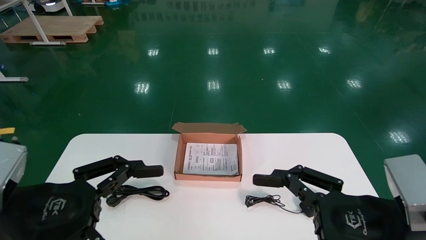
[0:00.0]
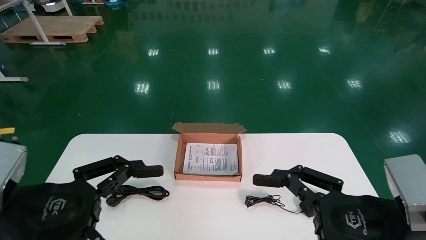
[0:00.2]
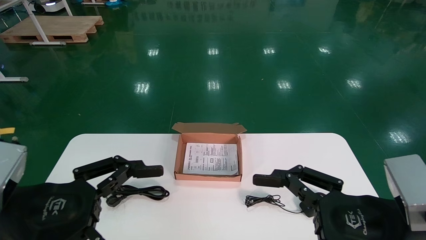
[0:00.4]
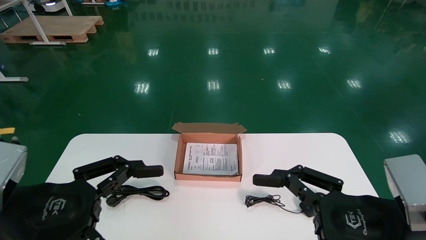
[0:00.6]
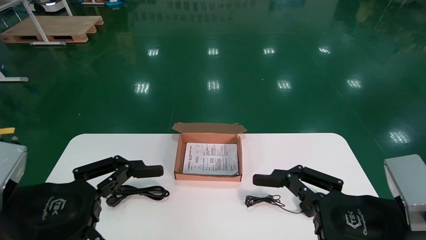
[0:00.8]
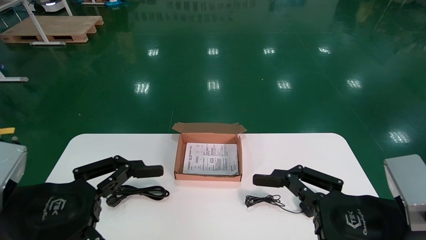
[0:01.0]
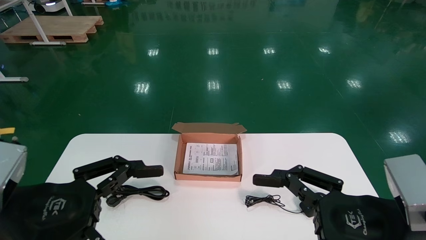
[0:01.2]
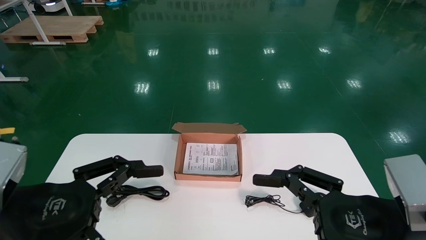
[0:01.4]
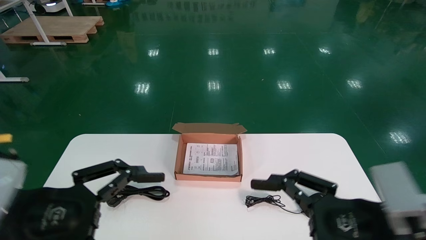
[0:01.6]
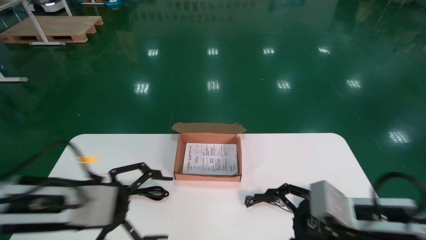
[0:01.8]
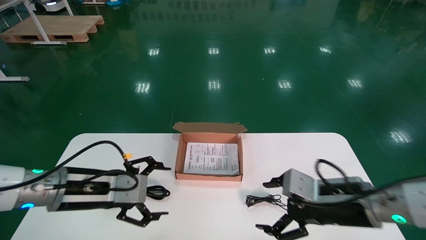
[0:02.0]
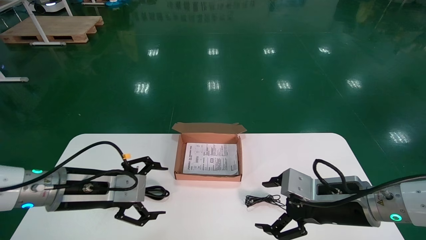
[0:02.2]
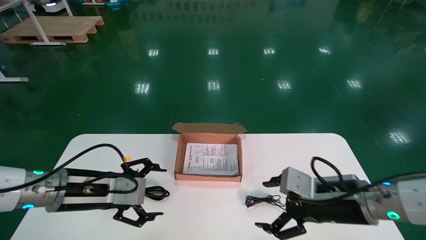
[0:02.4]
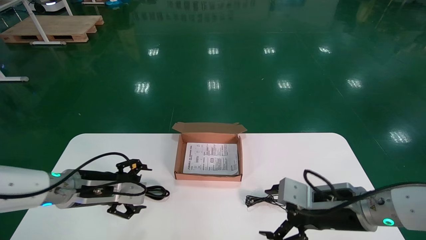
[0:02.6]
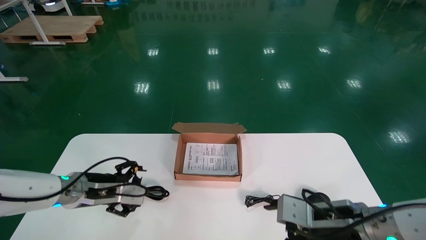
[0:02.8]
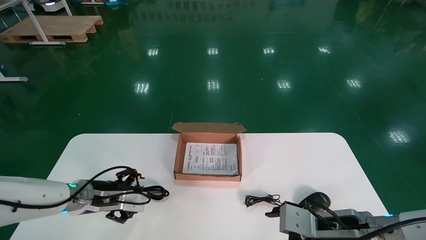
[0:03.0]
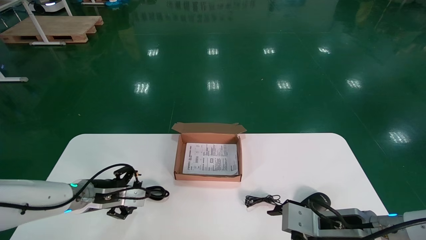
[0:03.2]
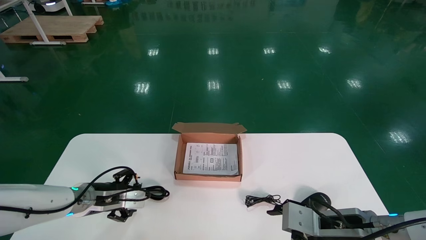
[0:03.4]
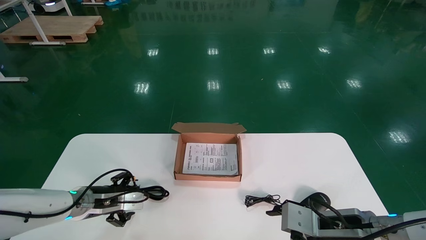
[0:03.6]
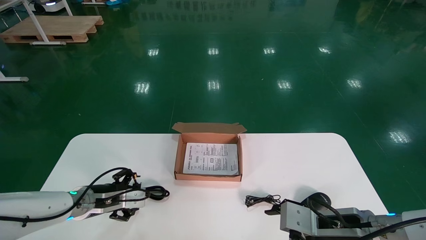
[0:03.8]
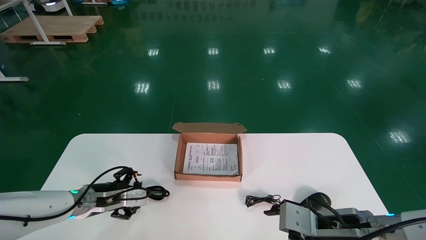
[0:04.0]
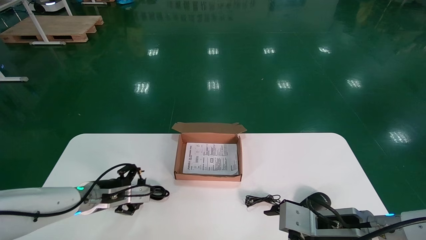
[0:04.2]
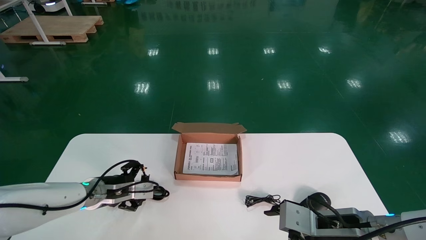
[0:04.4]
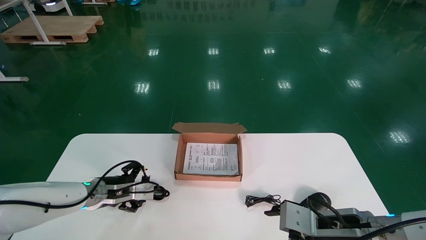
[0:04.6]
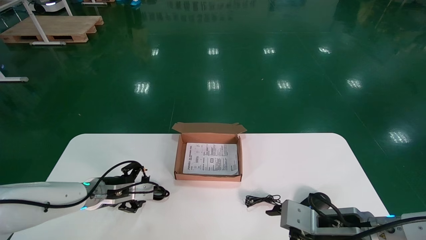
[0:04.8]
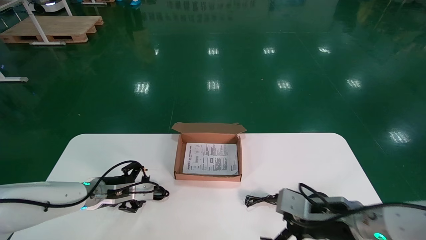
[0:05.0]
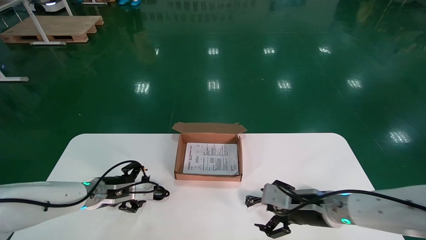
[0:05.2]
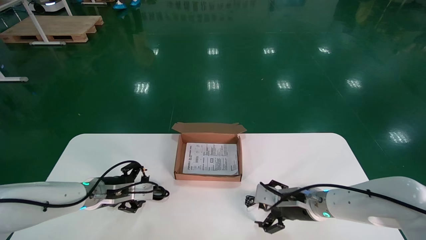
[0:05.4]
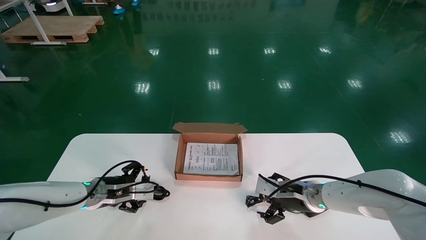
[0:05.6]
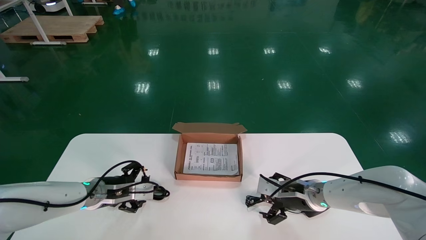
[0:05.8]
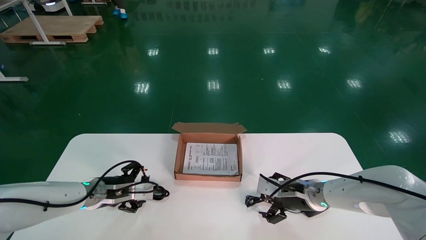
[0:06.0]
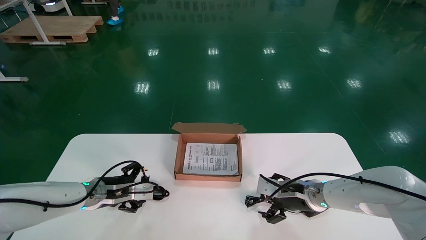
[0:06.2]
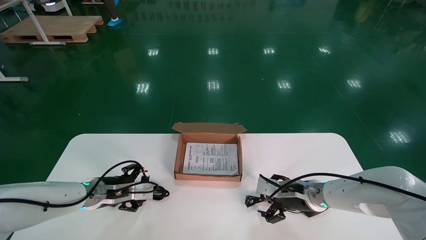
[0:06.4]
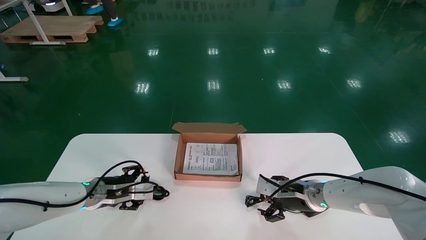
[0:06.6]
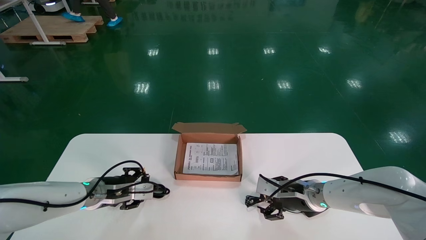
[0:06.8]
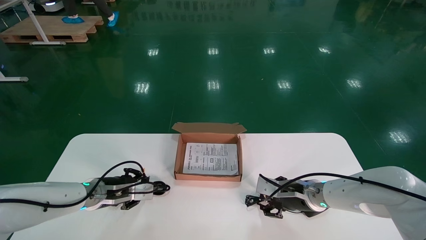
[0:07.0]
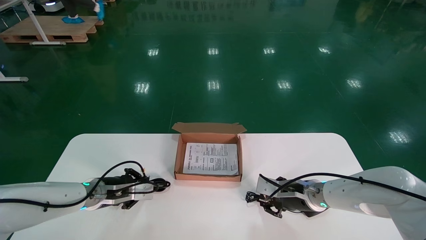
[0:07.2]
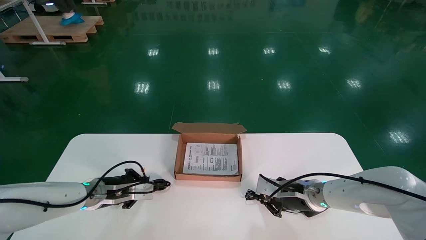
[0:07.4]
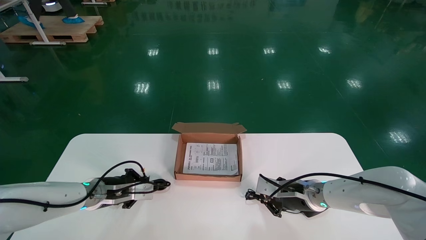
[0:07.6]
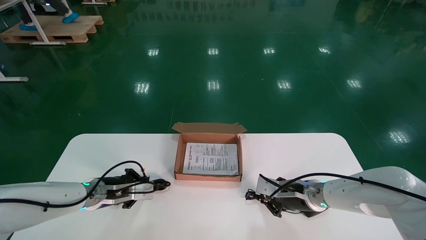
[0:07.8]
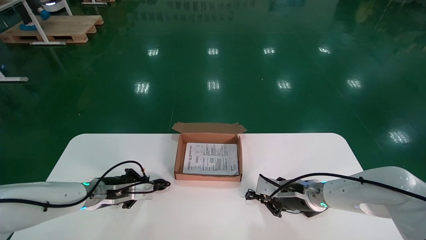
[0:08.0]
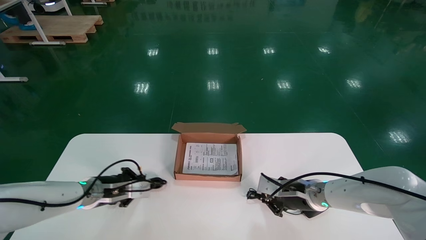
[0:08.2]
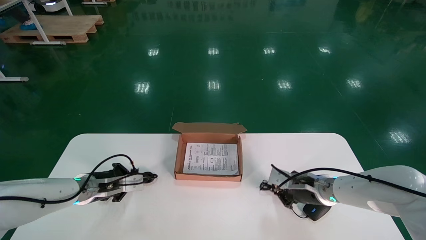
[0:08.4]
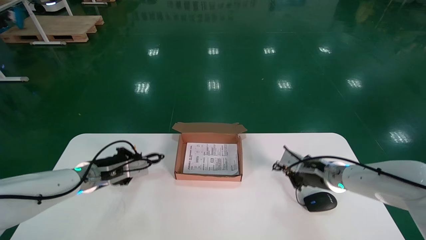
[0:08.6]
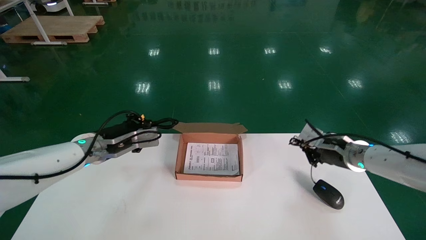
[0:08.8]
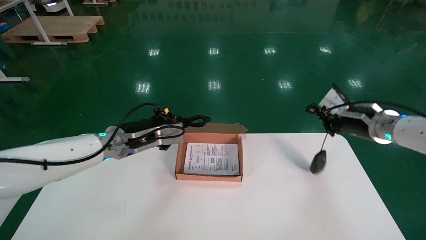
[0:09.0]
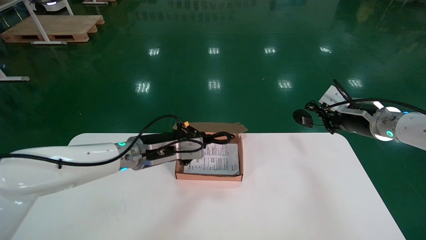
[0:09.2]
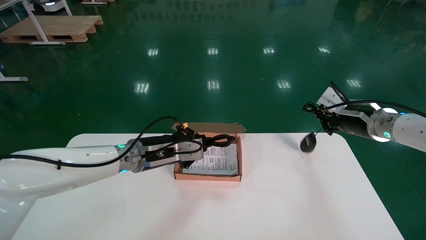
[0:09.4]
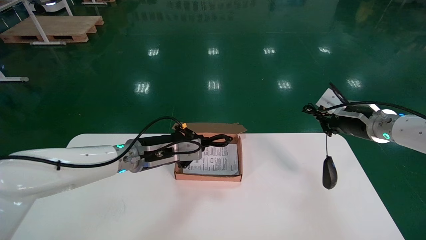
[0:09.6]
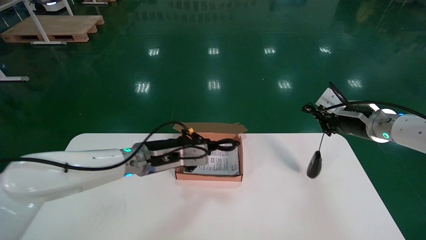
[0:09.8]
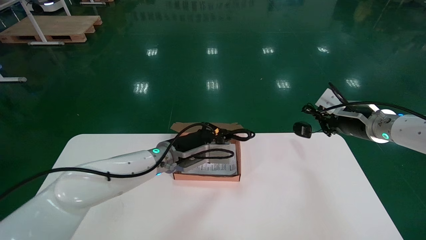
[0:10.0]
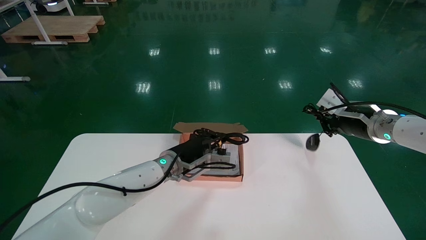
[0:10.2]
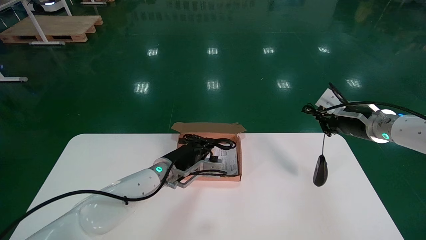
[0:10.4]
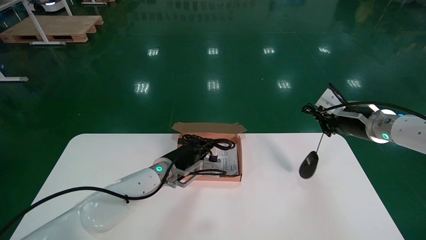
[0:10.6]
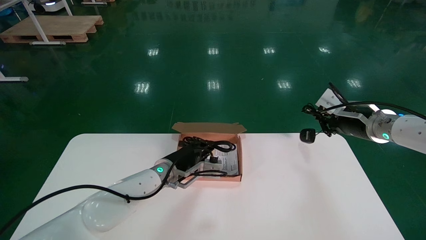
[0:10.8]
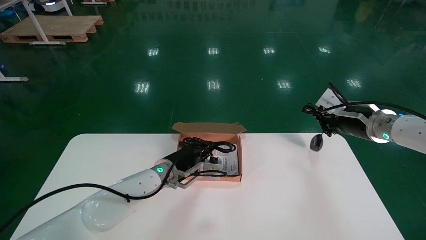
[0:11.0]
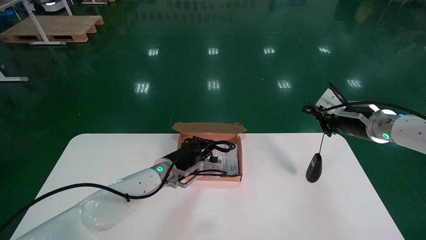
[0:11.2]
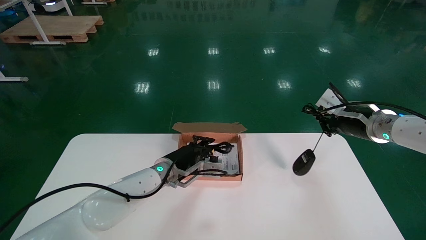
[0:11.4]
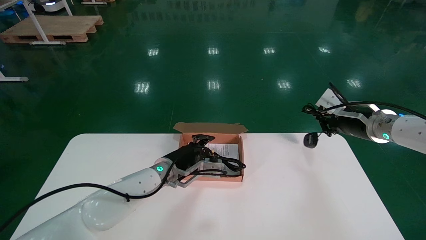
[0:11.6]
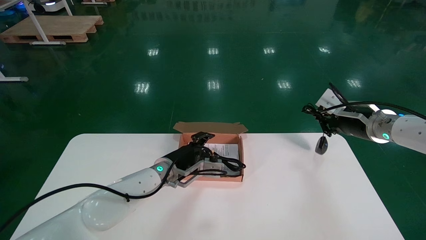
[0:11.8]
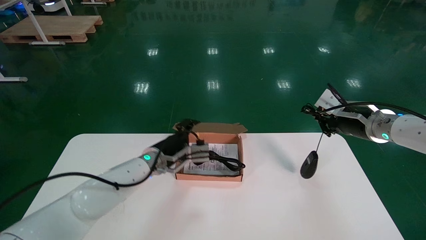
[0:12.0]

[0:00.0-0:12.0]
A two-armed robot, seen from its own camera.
Step, 0:01.8 to 0:07.2: Simultaneously pick up the mouse and power cord from the accessory packaging area.
0:01.6 to 0:03.0: The right gripper heads forward and downward, covering some 10 cm; the left gripper is displaced forward and downward by about 20 cm.
0:03.0 to 0:04.4: The grippers move only a little.
0:04.4 to 0:06.0: The right gripper is displaced forward by roughly 15 cm.
0:06.0 to 0:07.6: The left gripper closes up, while the right gripper closes up.
0:07.6 to 0:09.0: The two grippers go roughly 15 cm upward and to the right.
0:09.0 to 0:10.4: The left gripper heads to the right and downward, covering some 10 cm.
0:10.4 to 0:12.0: The left gripper is displaced to the left by some 5 cm, and opens its fingers.

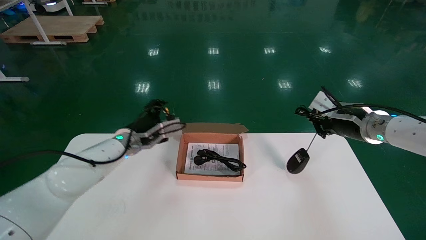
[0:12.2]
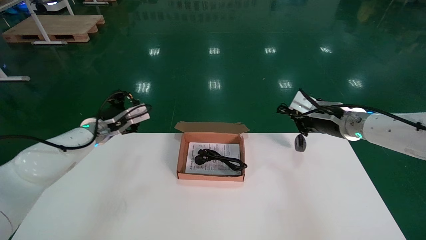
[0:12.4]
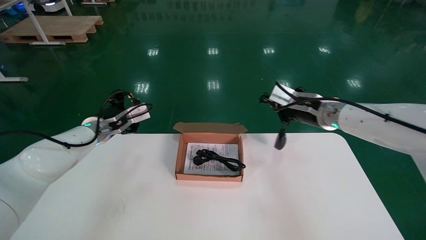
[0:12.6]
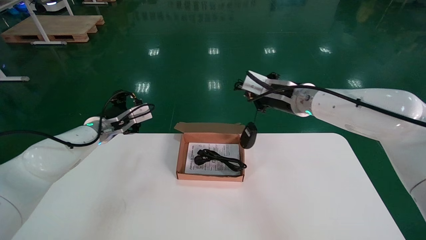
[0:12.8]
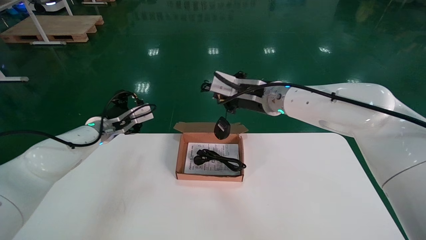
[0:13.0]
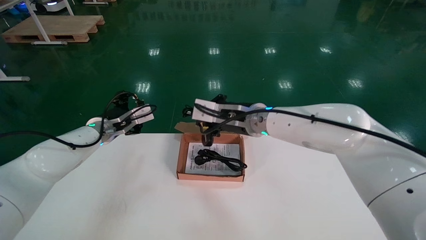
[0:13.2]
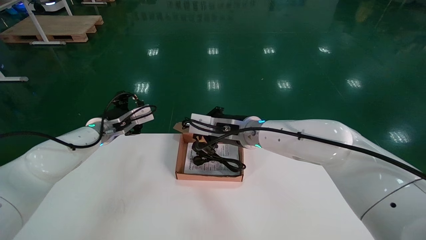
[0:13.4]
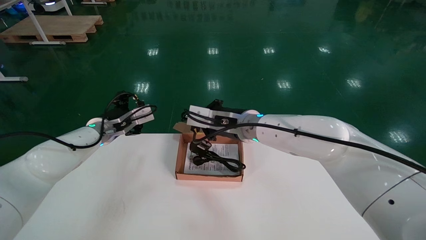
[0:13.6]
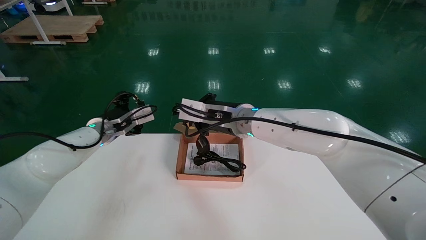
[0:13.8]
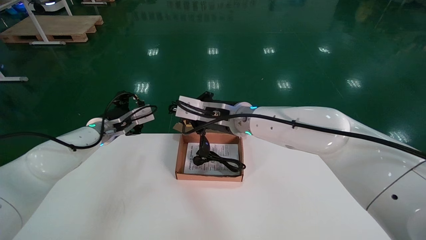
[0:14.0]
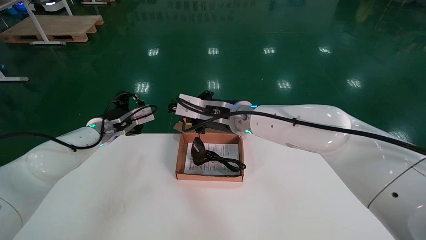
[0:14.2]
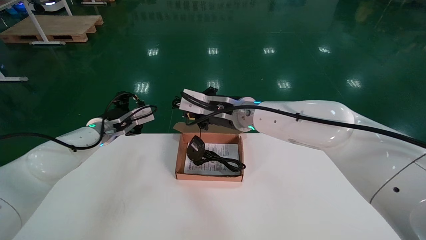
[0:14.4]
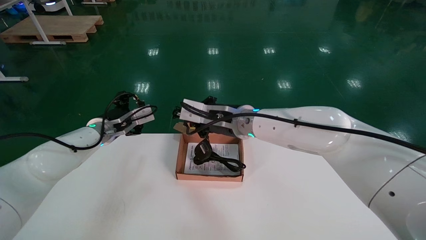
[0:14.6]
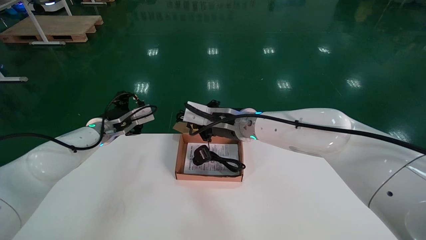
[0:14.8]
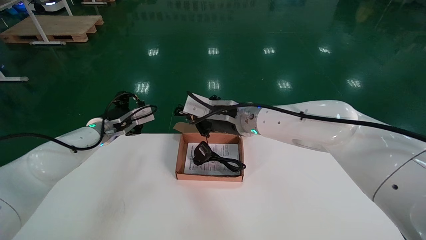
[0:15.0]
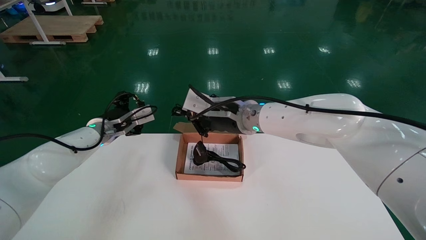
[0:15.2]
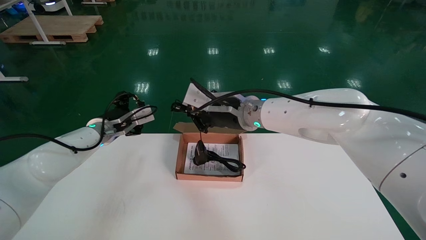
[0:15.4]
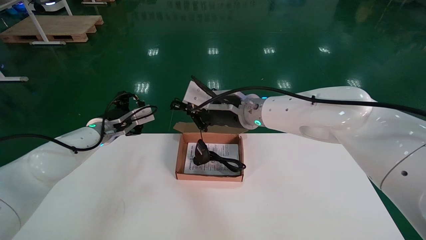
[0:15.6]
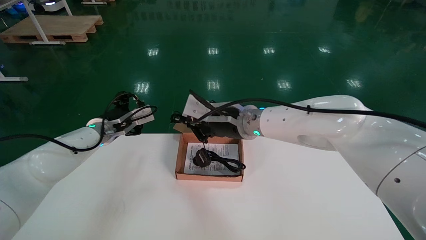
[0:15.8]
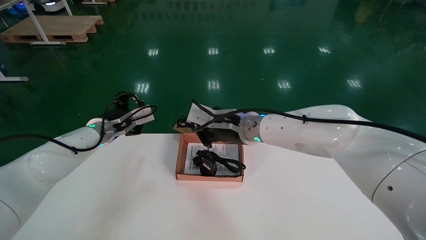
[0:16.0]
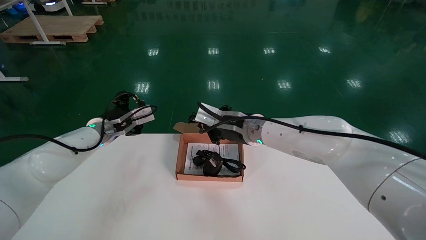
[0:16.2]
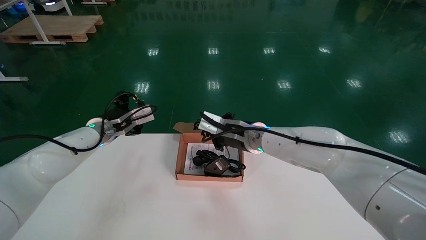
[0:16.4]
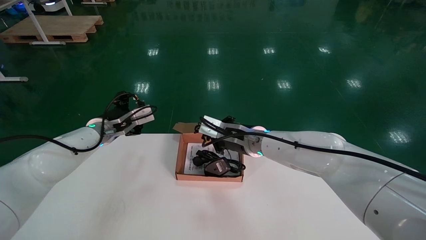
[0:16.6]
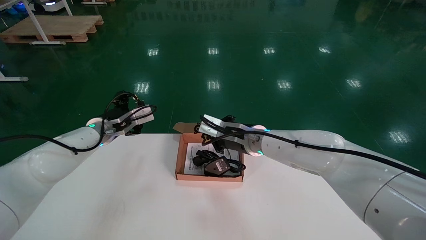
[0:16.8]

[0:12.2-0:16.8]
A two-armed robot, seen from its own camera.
0:12.2 to 0:13.8: The left gripper moves to the left, approximately 5 cm; the right gripper goes some 25 cm to the left.
0:13.8 to 0:15.2: The grippers stay close to where they were, moving slightly.
0:15.2 to 0:16.8: The right gripper is displaced downward by about 5 cm.
